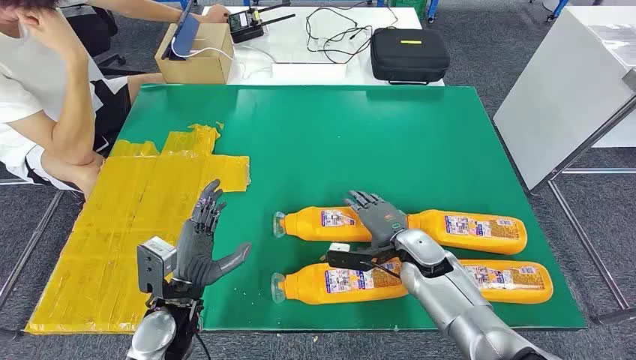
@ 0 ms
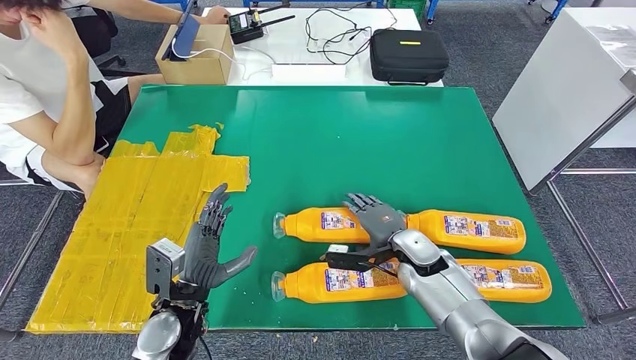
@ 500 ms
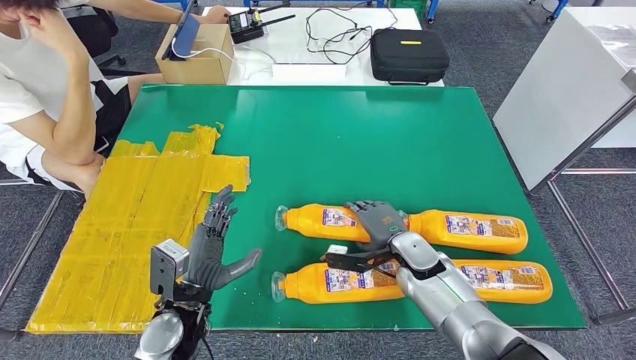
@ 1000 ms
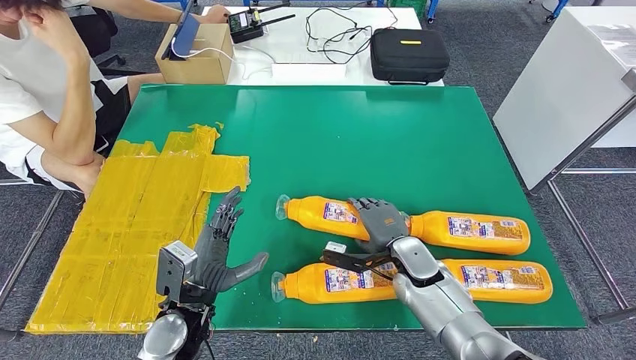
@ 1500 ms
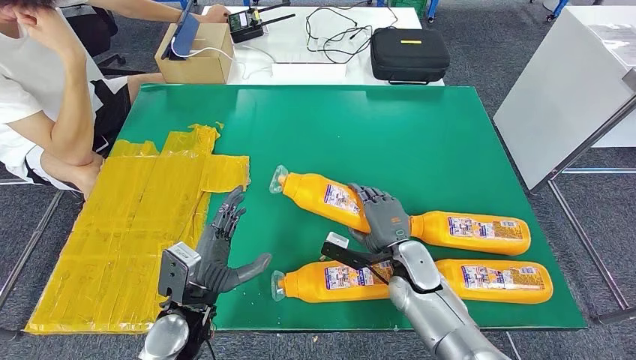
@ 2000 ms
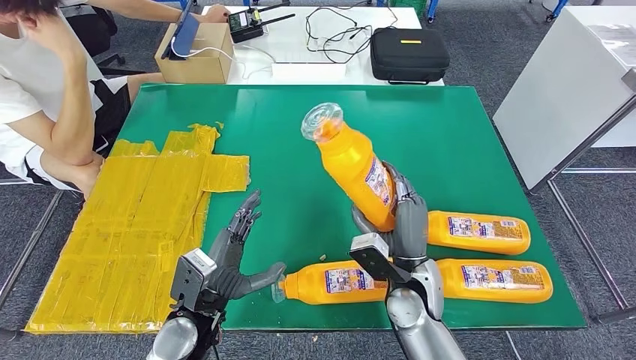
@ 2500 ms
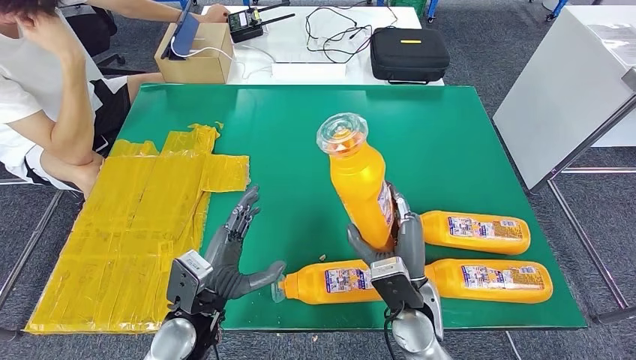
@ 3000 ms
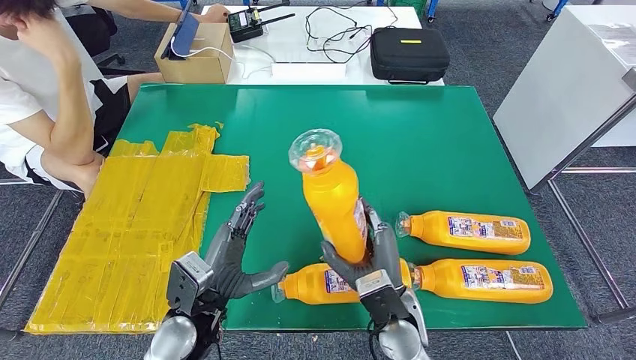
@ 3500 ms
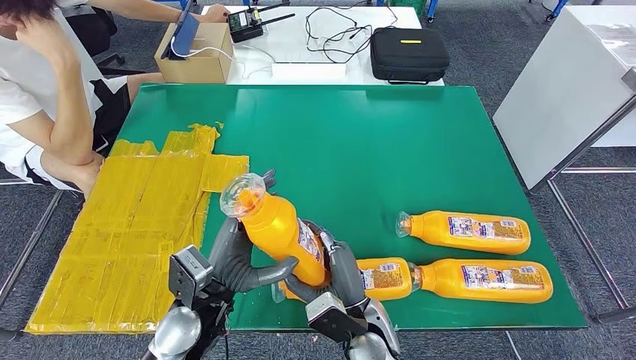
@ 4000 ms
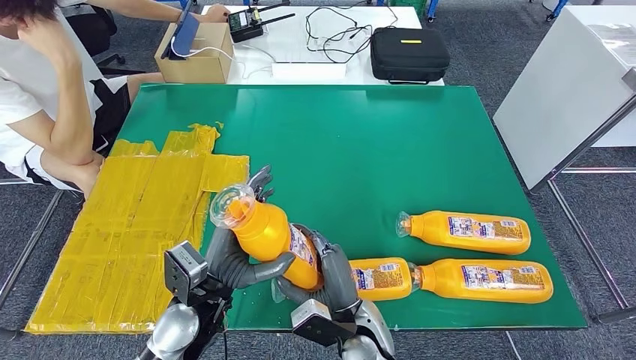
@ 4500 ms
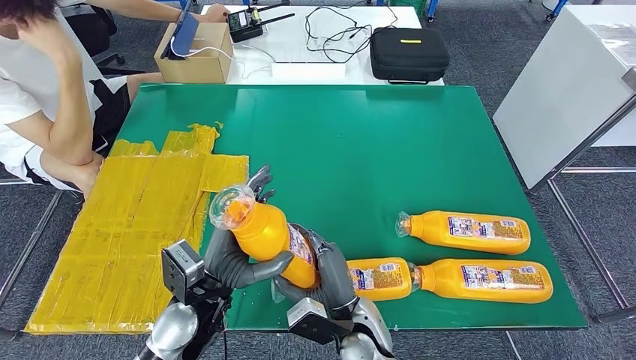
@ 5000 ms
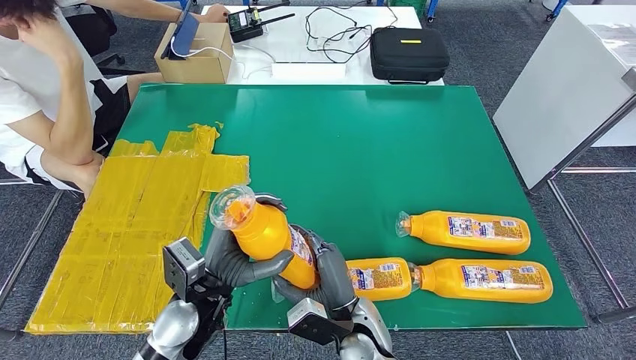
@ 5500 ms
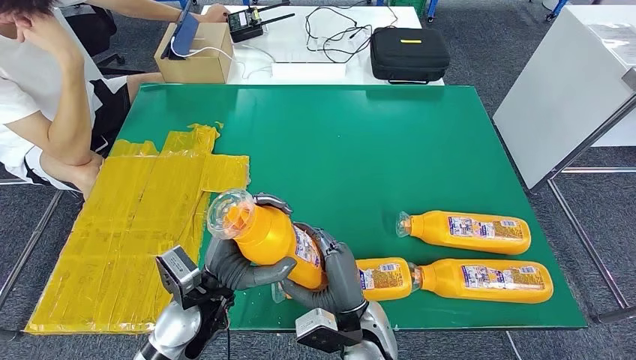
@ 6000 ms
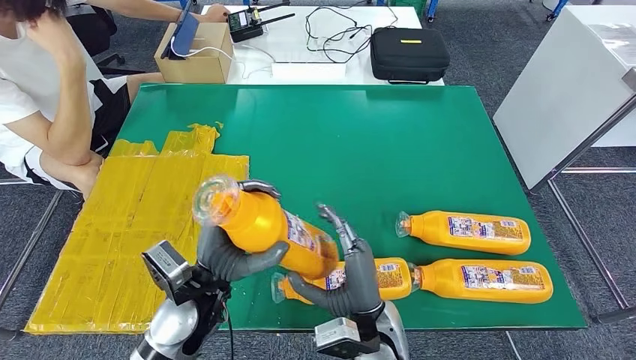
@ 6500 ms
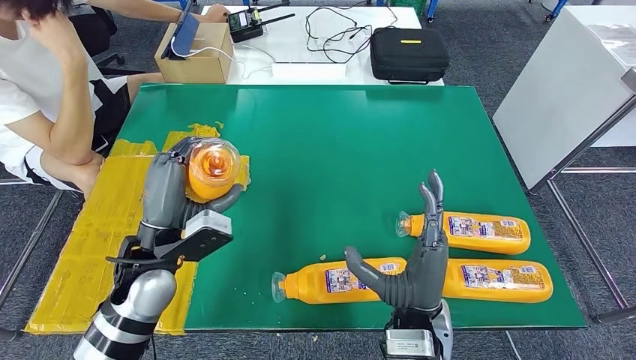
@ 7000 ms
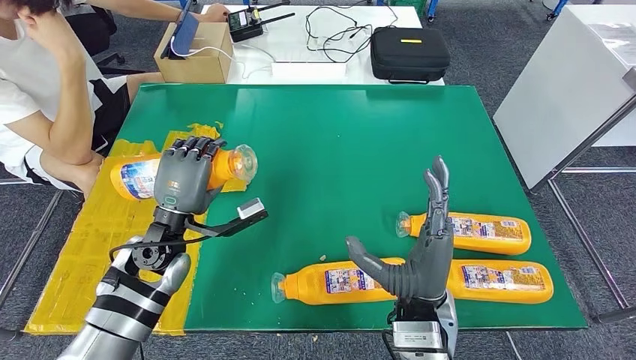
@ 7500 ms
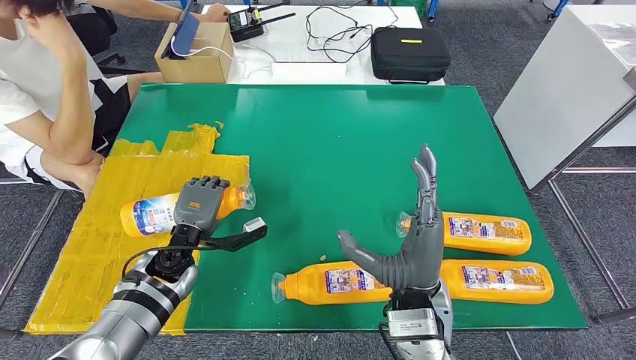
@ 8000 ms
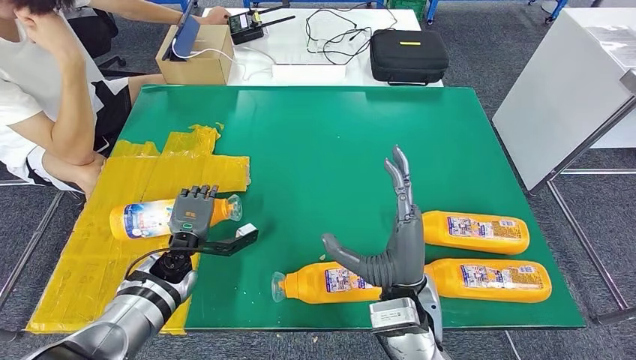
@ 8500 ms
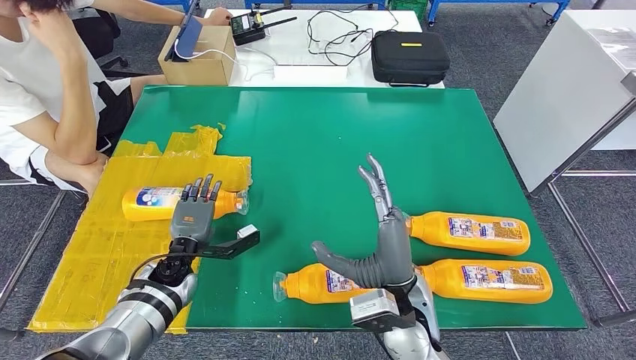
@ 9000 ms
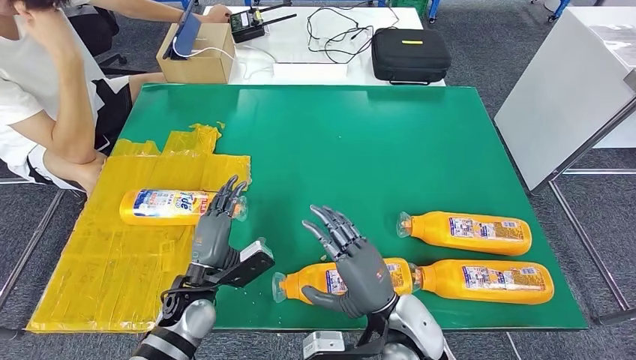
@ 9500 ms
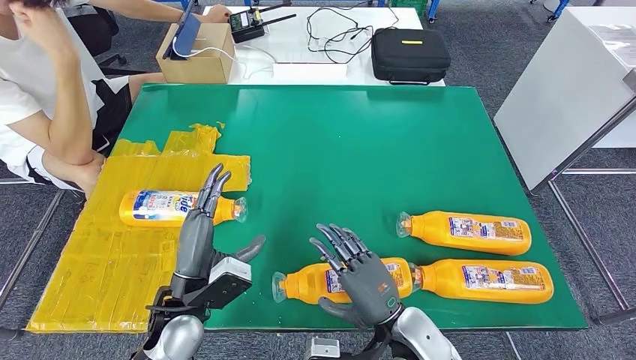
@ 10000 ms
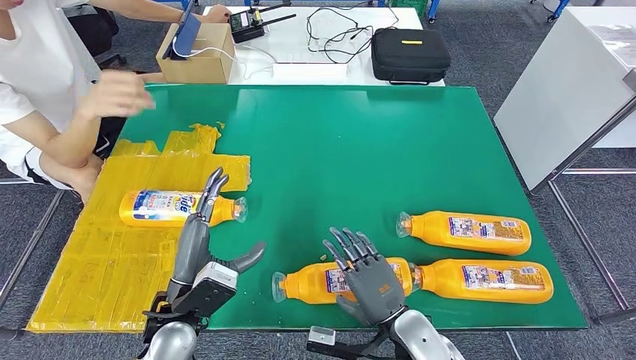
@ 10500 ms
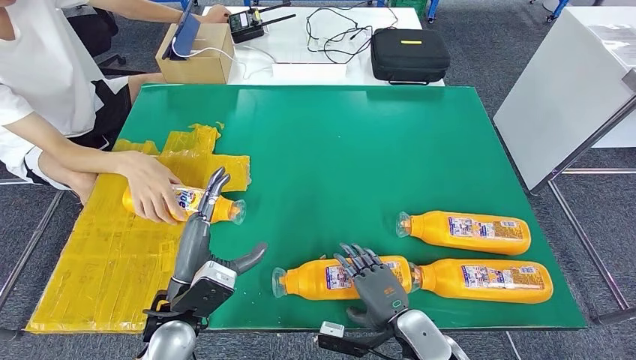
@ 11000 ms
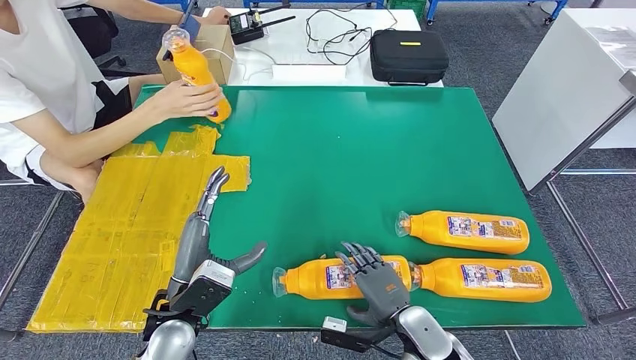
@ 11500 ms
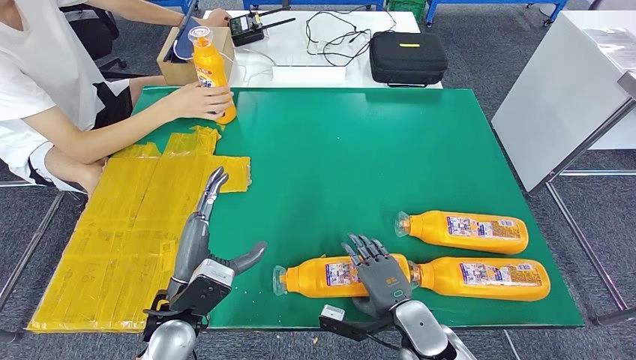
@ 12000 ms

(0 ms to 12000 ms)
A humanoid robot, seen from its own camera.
Step, 0 ms - 4000 ms: Take the fast-moving consumer goods bottle from the table.
Step, 6500 ms - 10000 ms: Flip the fast-moving consumer goods bottle to the front side.
2000 ms - 4000 ms: The right hand travels backward and to the left by about 15 cm. The left hand shifts by roughly 5 cm.
4000 ms - 6000 ms: The hands stay close to where they were, moving slightly.
6000 ms - 8000 ms: The left hand moves forward, to the left and downward, roughly 15 cm, while the right hand is displaced upward and to the right by some 10 cm.
8000 ms - 10000 ms: The left hand travels backward by roughly 10 cm; the right hand goes some 10 cm downward.

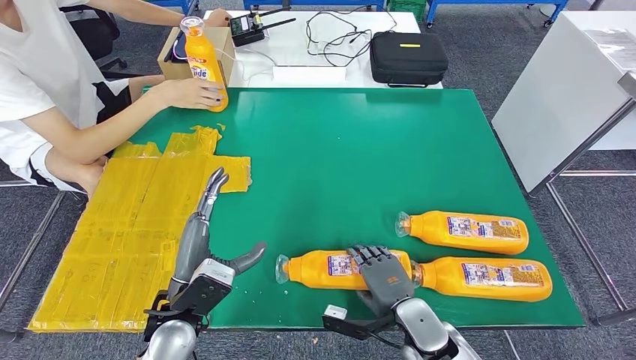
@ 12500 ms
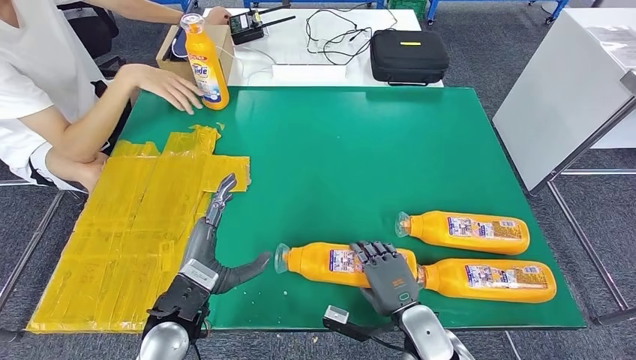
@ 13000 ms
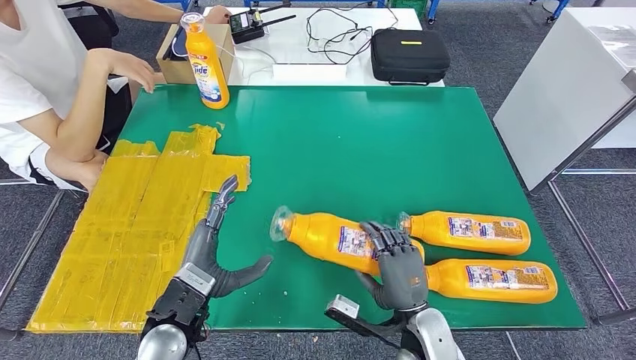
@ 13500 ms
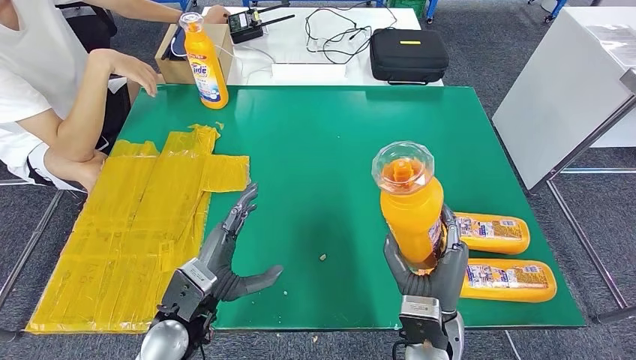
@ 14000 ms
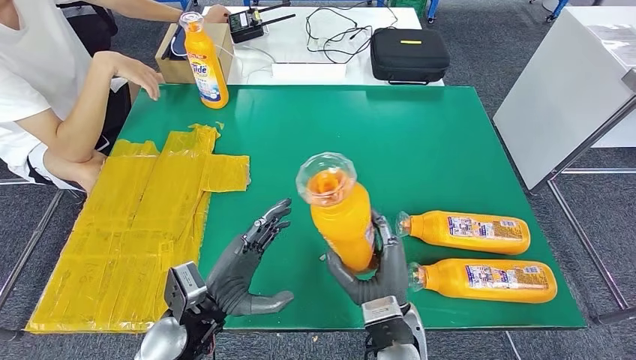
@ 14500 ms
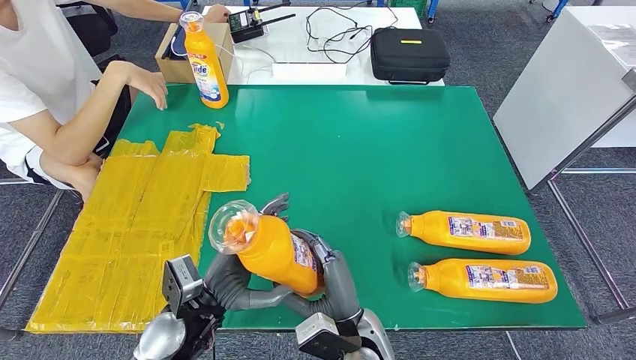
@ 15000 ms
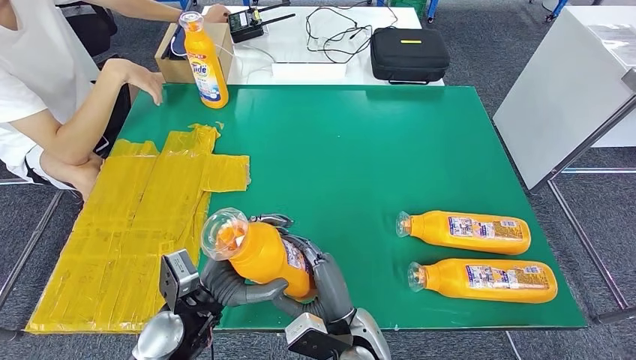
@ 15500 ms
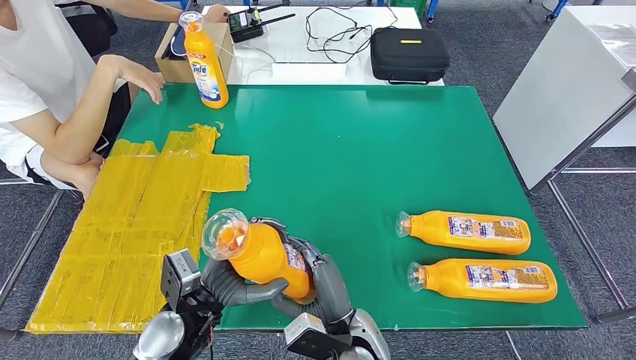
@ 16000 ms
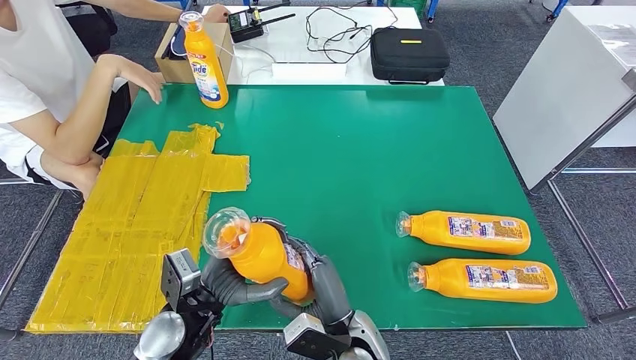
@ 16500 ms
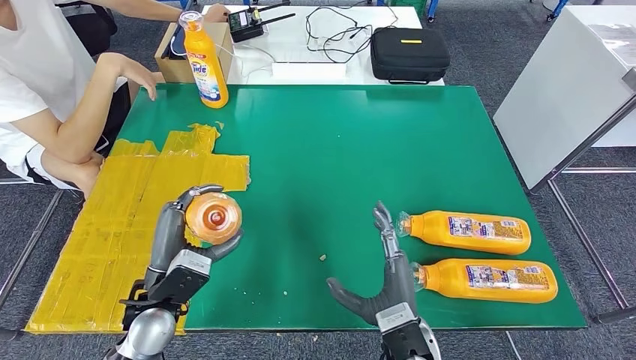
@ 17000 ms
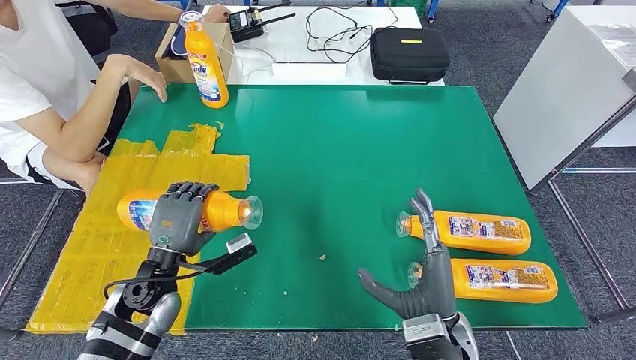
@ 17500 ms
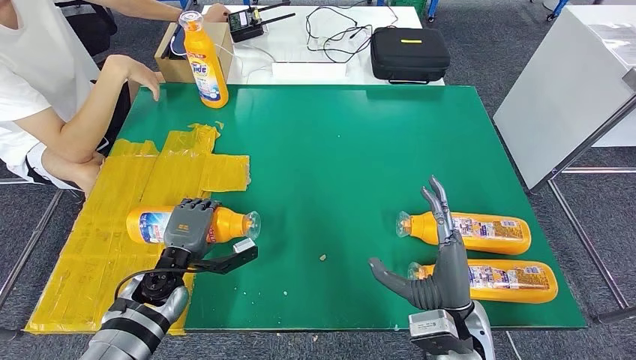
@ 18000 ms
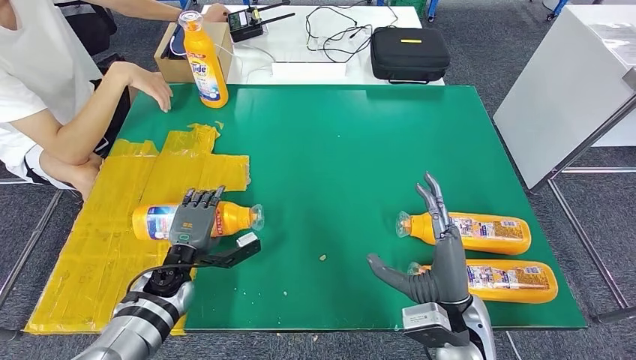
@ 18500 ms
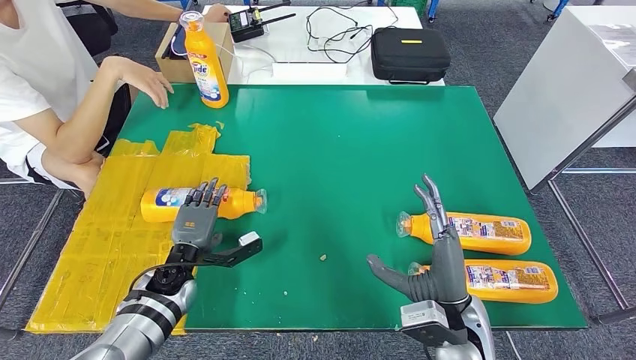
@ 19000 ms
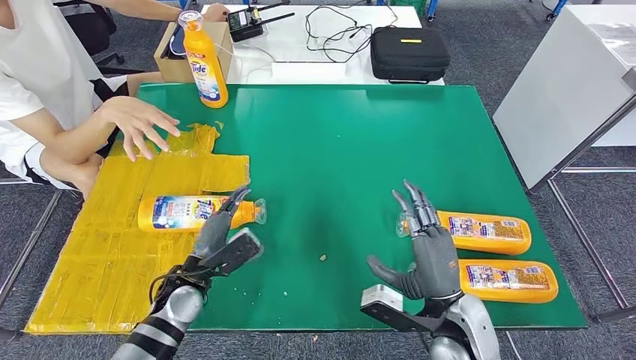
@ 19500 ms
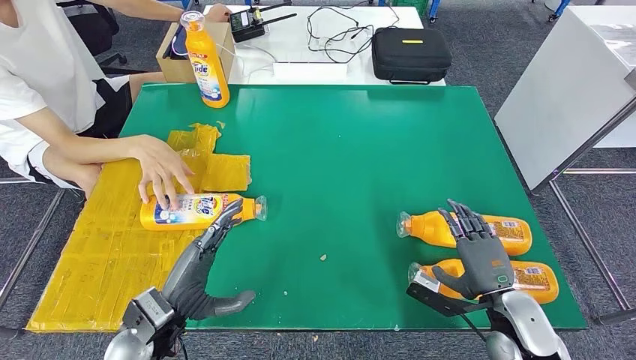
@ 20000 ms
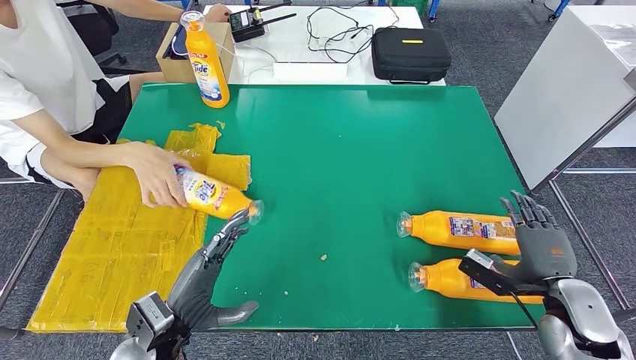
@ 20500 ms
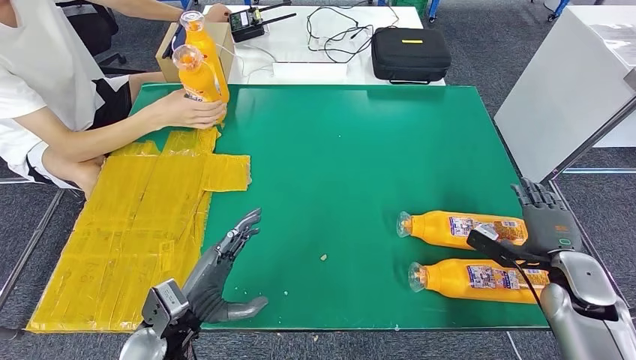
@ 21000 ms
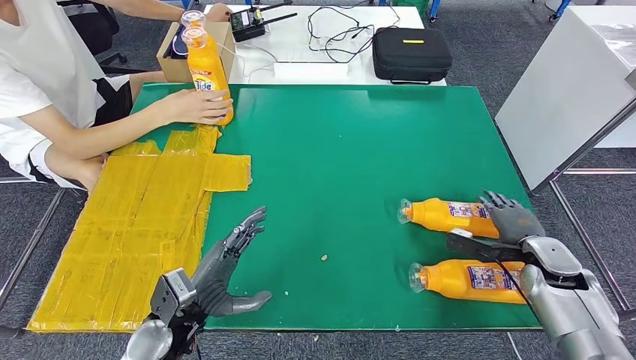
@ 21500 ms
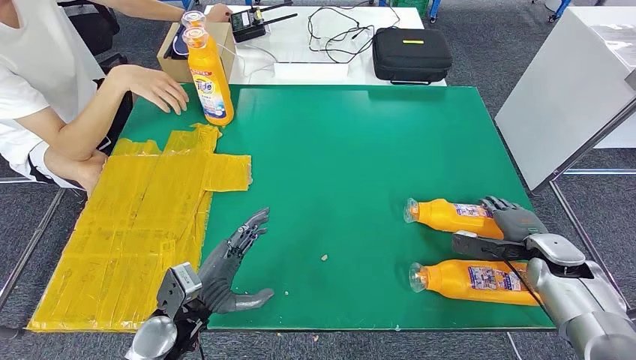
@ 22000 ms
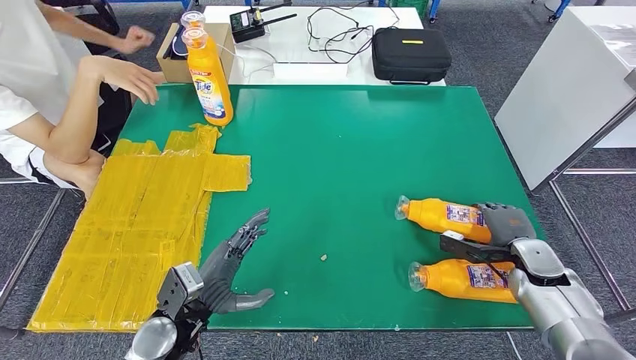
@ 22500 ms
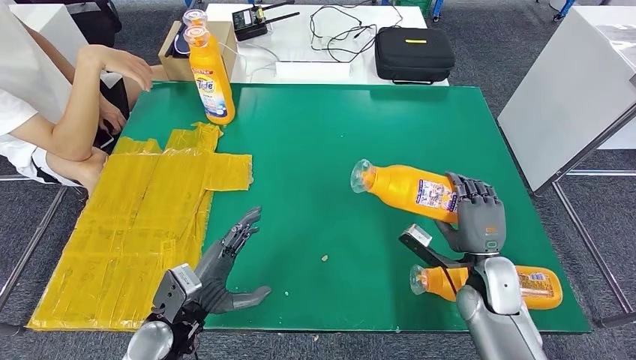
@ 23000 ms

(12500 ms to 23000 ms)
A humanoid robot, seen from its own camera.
Step, 12500 ms - 13500 ms: Pick up the fast-moving consumer goods bottle from the table.
Step, 15500 ms - 19500 ms: Flip the fast-moving consumer goods bottle to the front side.
14500 ms - 16500 ms: The right hand is displaced to the left by approximately 5 cm.
16500 ms - 19000 ms: The right hand is displaced to the right and upward by roughly 15 cm; the left hand travels forward, downward and to the left by roughly 15 cm.
